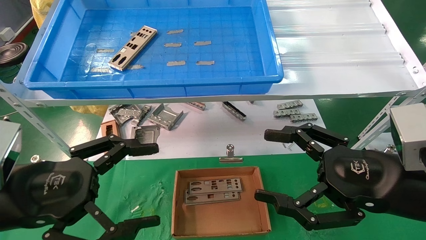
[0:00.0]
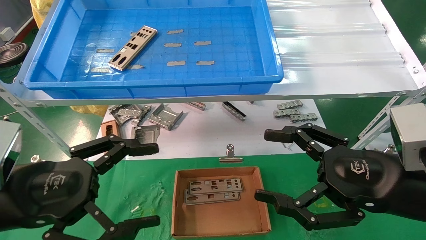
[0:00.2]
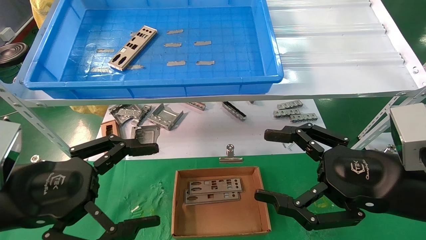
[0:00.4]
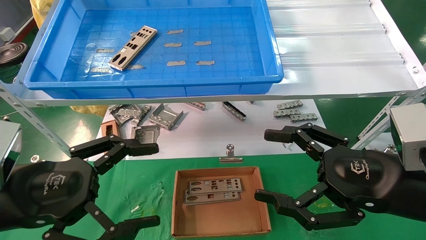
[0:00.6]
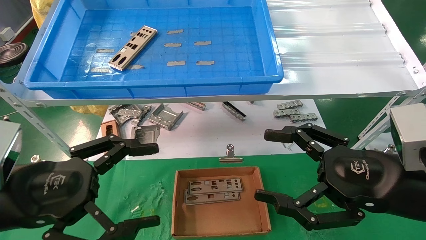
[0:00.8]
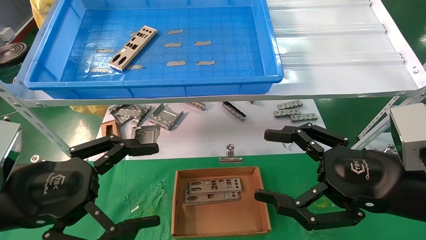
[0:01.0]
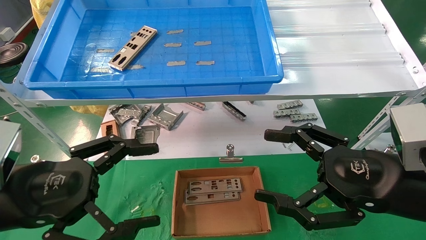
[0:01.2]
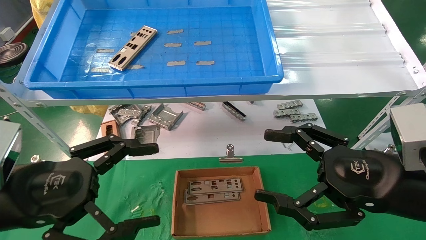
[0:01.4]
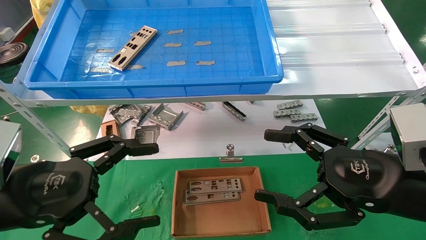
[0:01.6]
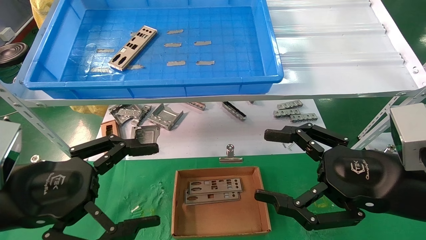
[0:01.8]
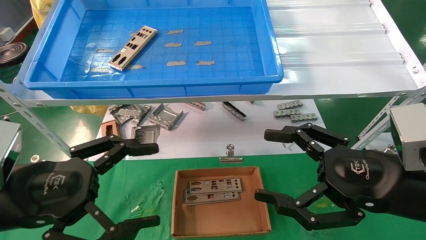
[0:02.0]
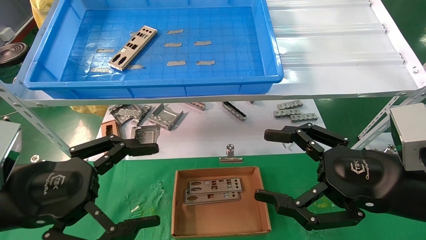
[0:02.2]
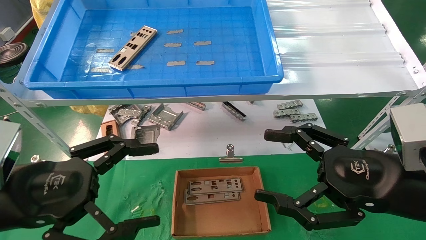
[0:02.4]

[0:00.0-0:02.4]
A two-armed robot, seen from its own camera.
Task of the whole recording: pick up the parts on the tray and put them in the cardboard box.
0:00.0 to 0:02.4: Both grippers stay about where they are.
